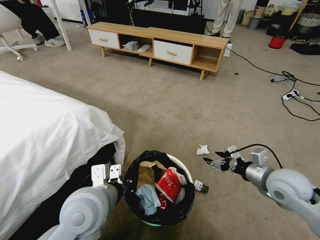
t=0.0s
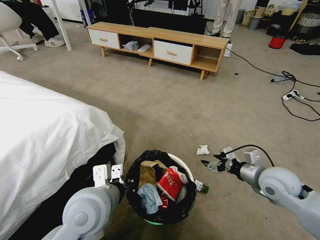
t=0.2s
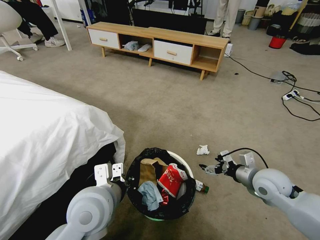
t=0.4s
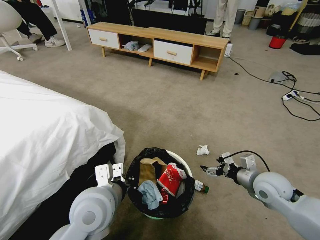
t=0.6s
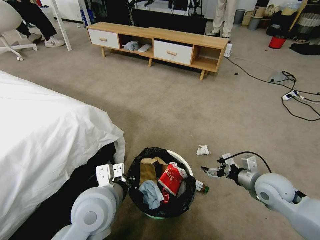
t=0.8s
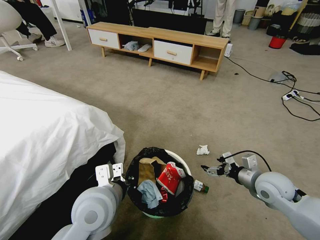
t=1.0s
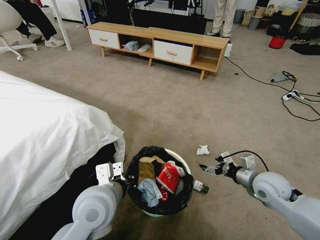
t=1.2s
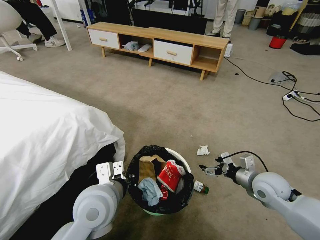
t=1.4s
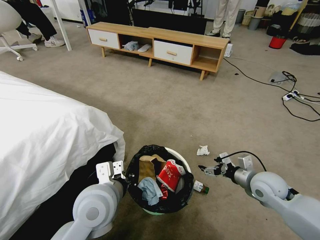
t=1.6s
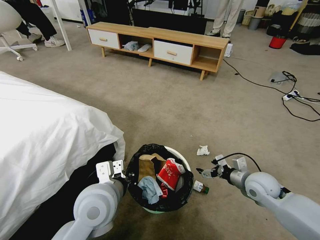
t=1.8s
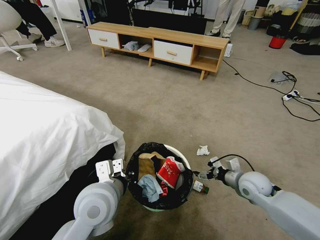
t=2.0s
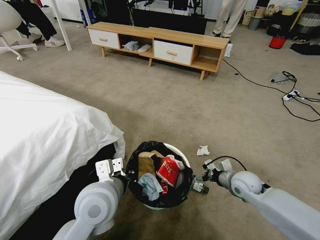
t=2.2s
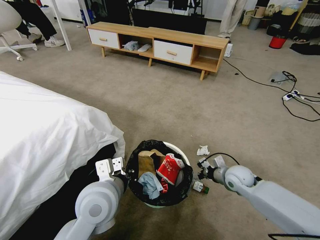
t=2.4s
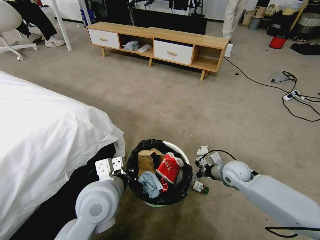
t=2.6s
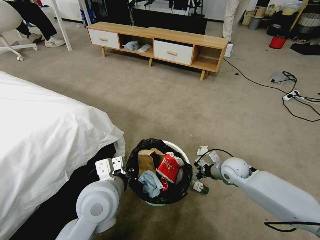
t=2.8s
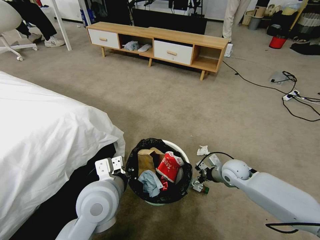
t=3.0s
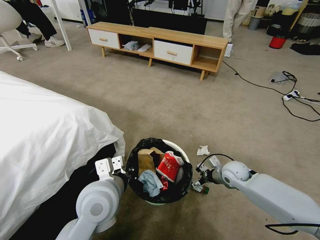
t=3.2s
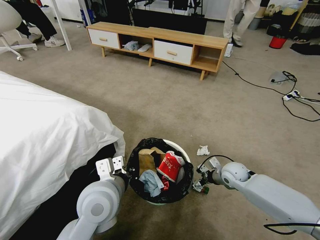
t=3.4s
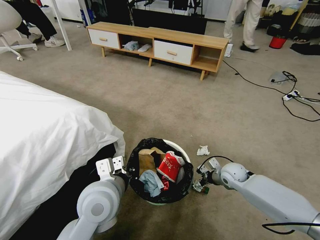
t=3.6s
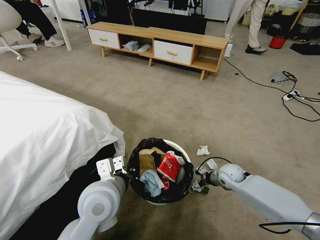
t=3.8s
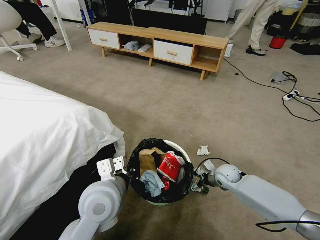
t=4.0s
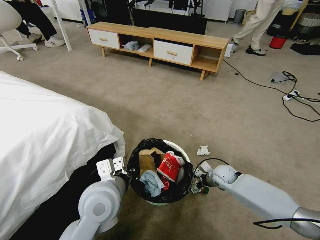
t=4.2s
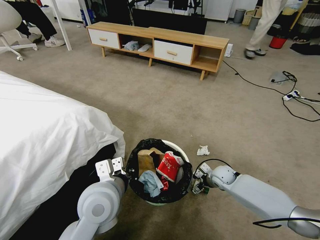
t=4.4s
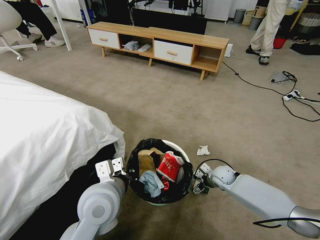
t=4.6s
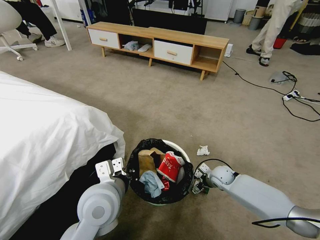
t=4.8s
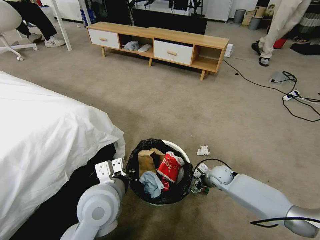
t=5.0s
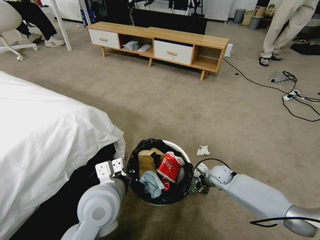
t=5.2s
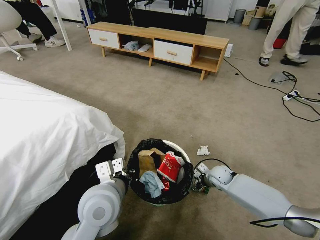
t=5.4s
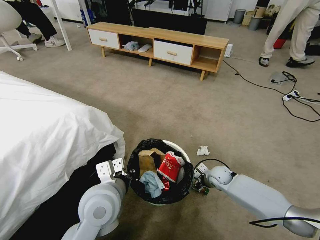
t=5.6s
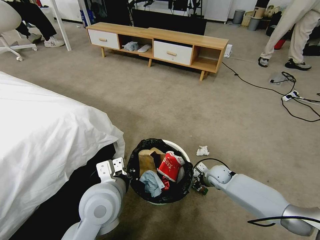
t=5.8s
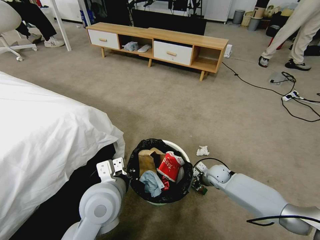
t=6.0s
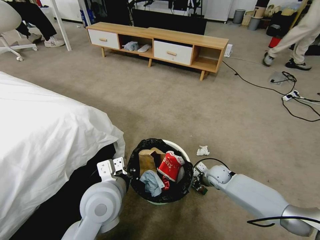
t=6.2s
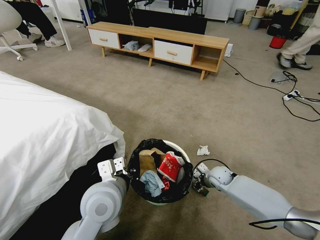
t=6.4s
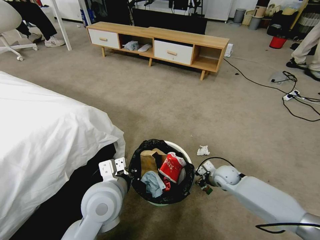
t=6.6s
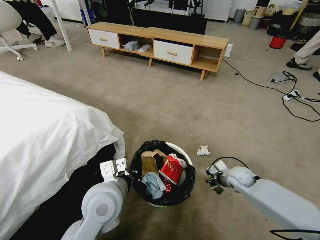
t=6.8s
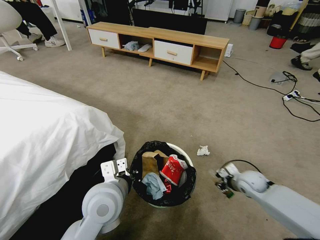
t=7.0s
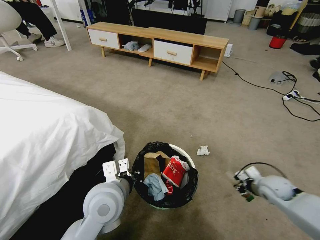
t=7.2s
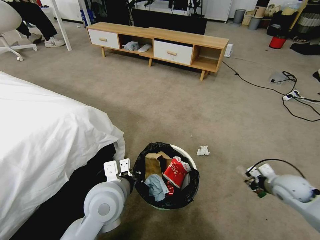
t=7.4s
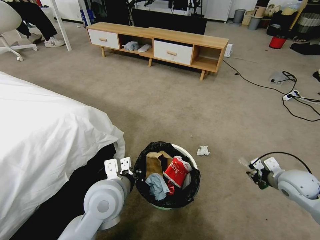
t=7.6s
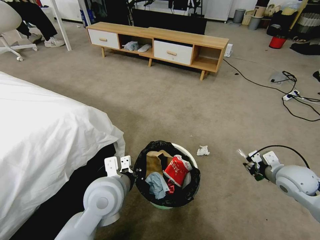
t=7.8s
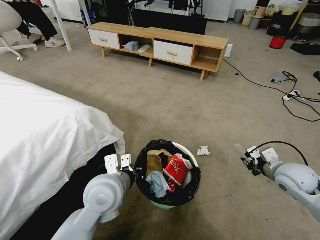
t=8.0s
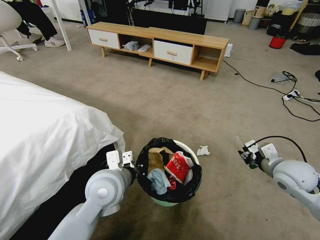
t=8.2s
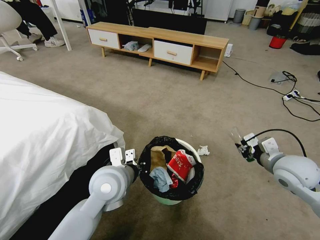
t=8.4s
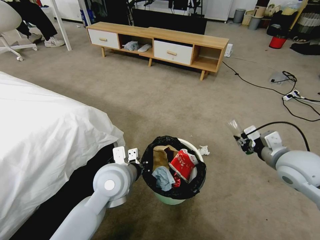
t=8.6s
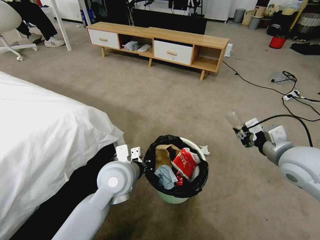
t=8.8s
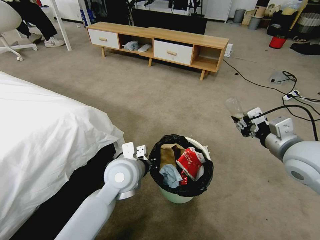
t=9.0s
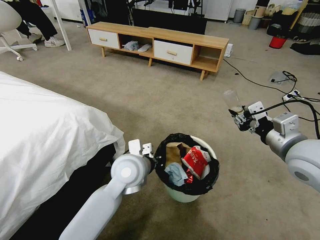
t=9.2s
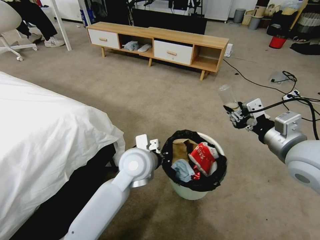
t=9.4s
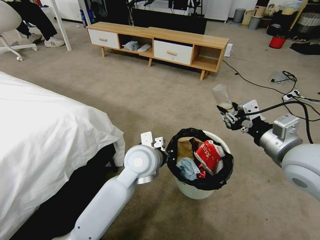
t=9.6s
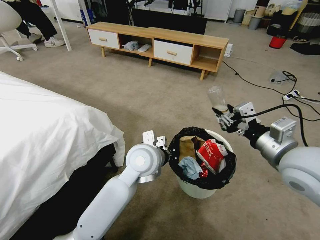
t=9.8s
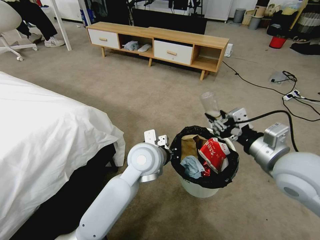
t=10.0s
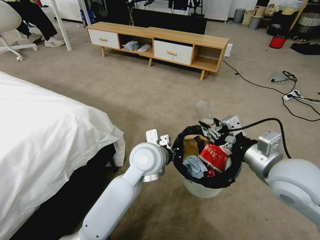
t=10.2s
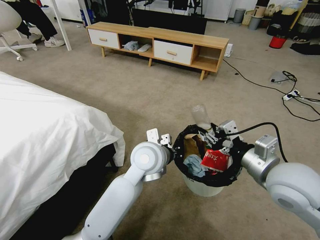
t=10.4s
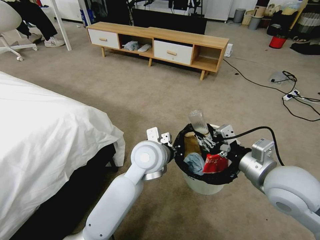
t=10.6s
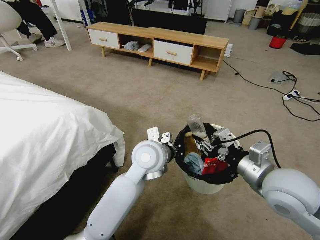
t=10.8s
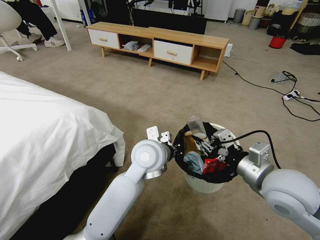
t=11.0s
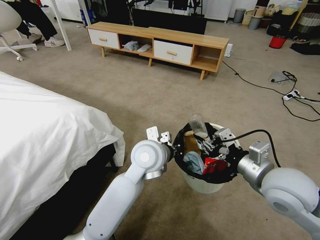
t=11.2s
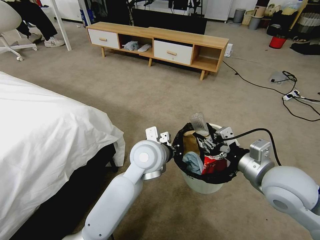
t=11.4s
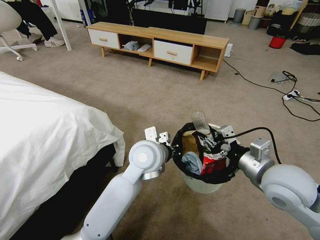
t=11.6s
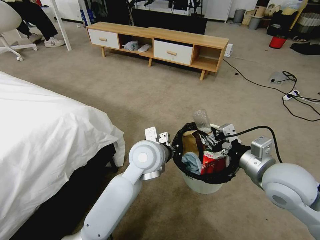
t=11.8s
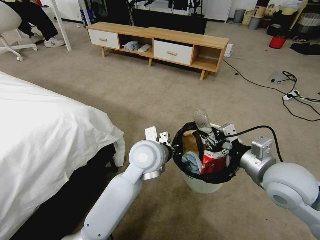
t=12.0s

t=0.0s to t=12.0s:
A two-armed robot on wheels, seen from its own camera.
Task of the whole recording: Pick up the trash bin, then pick up the garbage from the floor and place it into the trash bin.
t=0.0s to t=1.6s: The right gripper moves downward, approximately 5 cm.
t=1.6s to t=3.0s: The right gripper heads forward and downward, covering approximately 10 cm.
t=3.0s to t=4.4s: The right gripper is displaced downward by some 10 cm.
t=4.4s to t=6.0s: The right gripper closes its fingers.
t=6.0s to t=7.6s: The right gripper is displaced to the right, upward and backward by roughly 25 cm.
t=7.6s to t=9.0s: The right gripper travels upward and to the left by about 20 cm. Meanwhile the left gripper is displaced forward by approximately 5 cm.
t=9.0s to t=10.4s: The left gripper is displaced to the right by roughly 5 cm. Meanwhile the right gripper moves to the left, some 5 cm.
t=10.4s to t=12.0s: The grippers make only small movements.

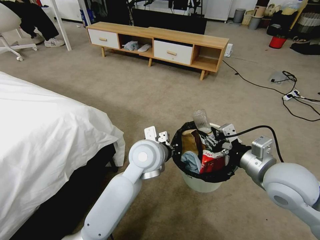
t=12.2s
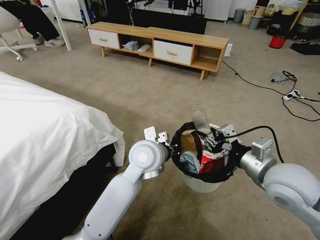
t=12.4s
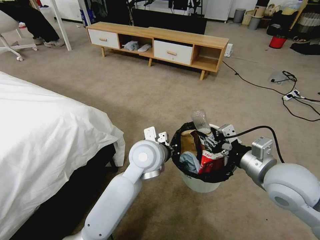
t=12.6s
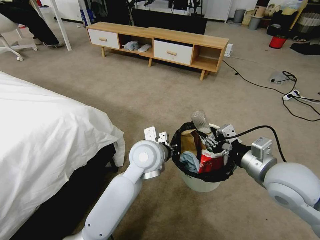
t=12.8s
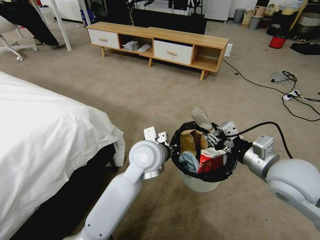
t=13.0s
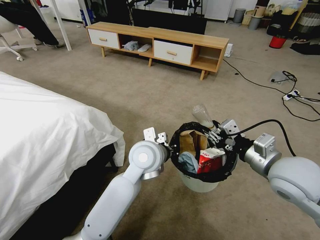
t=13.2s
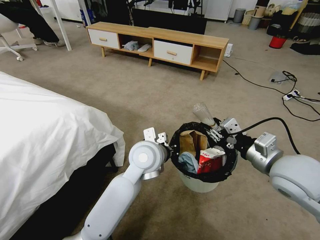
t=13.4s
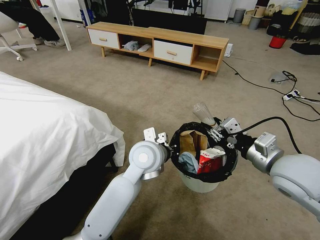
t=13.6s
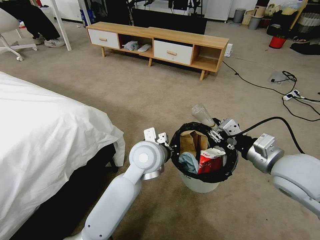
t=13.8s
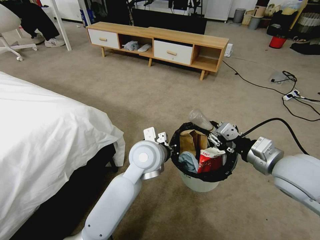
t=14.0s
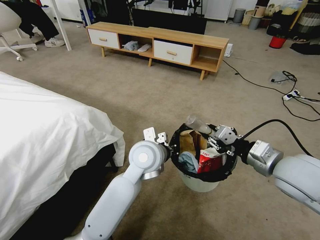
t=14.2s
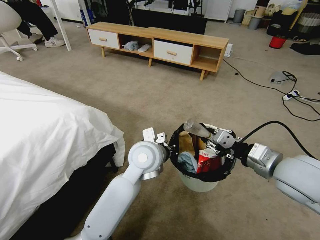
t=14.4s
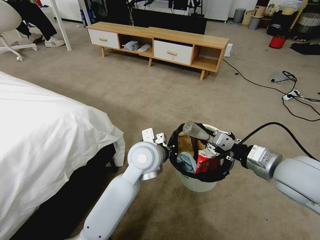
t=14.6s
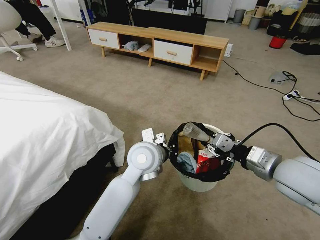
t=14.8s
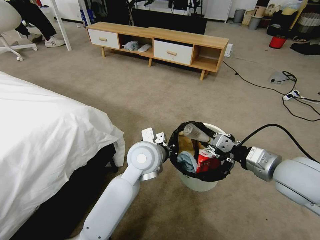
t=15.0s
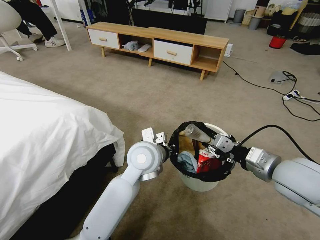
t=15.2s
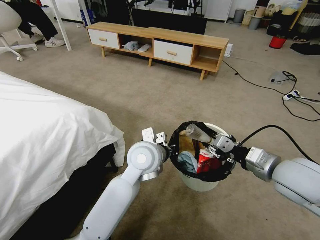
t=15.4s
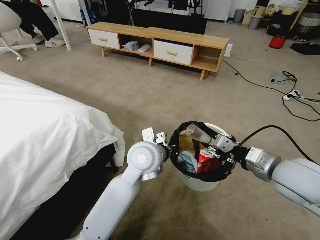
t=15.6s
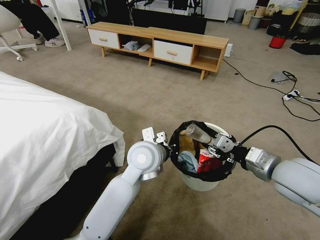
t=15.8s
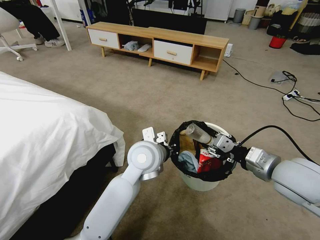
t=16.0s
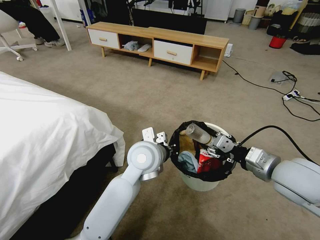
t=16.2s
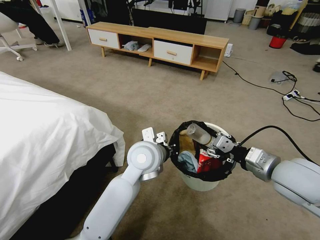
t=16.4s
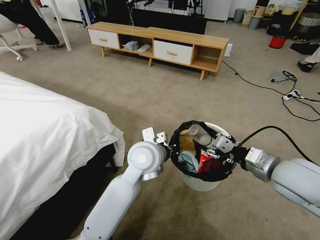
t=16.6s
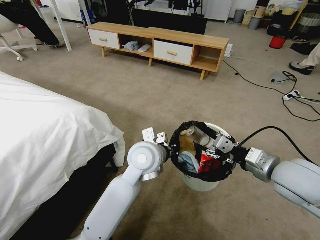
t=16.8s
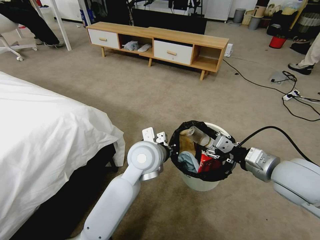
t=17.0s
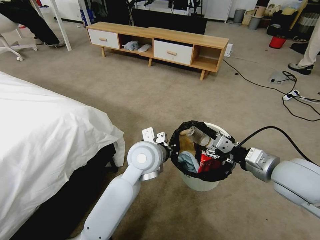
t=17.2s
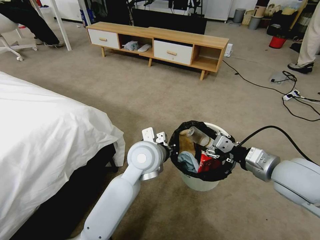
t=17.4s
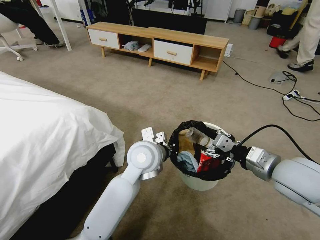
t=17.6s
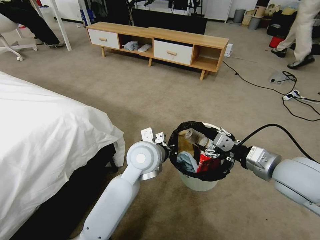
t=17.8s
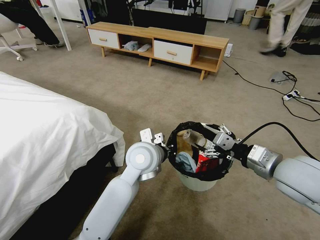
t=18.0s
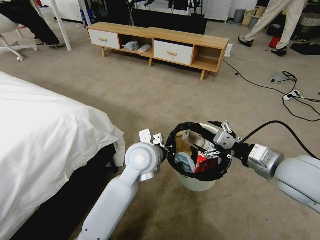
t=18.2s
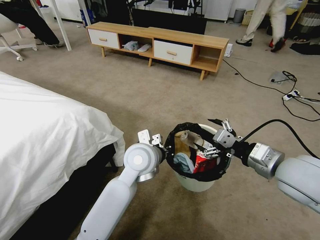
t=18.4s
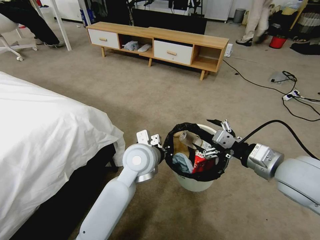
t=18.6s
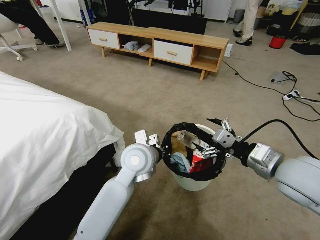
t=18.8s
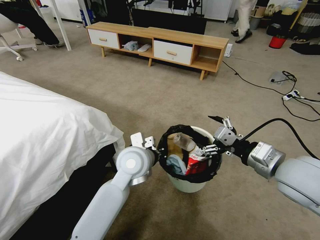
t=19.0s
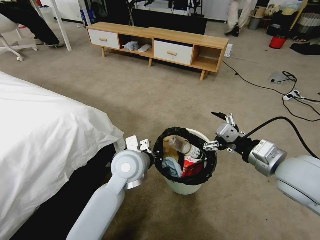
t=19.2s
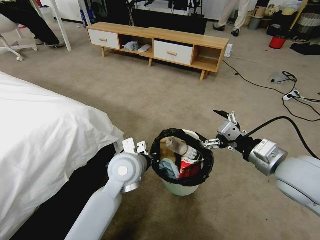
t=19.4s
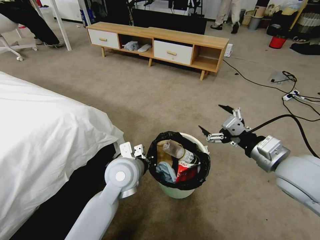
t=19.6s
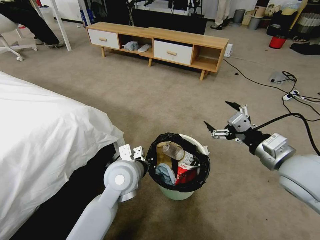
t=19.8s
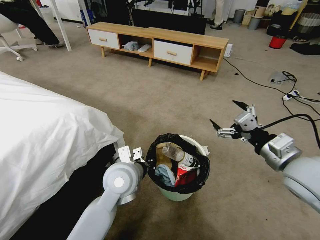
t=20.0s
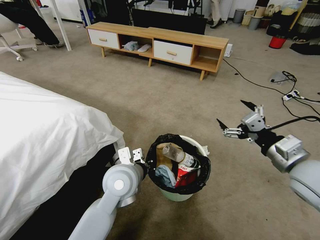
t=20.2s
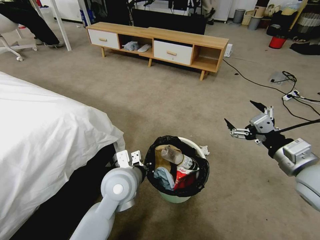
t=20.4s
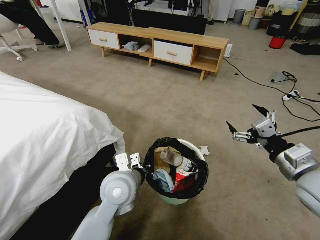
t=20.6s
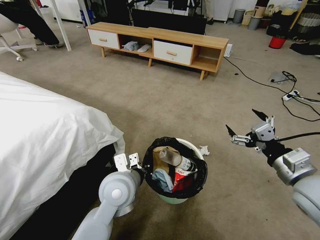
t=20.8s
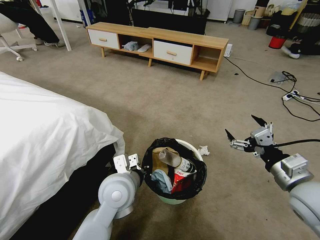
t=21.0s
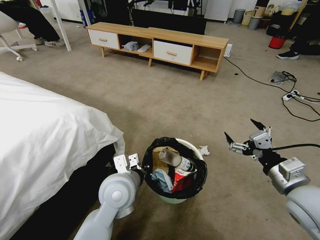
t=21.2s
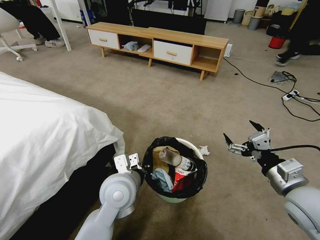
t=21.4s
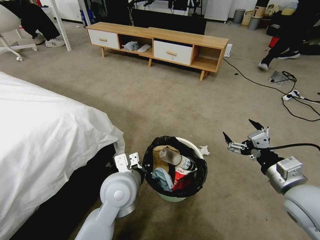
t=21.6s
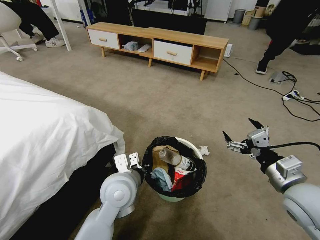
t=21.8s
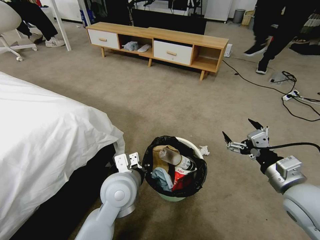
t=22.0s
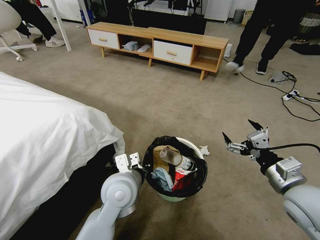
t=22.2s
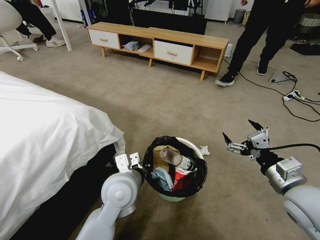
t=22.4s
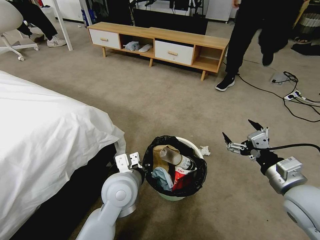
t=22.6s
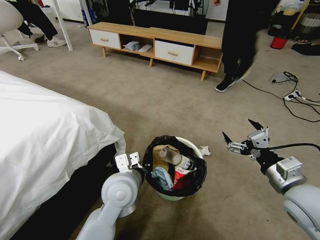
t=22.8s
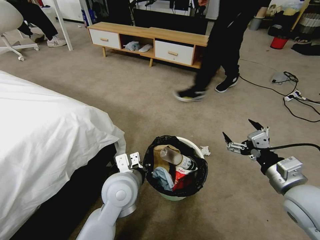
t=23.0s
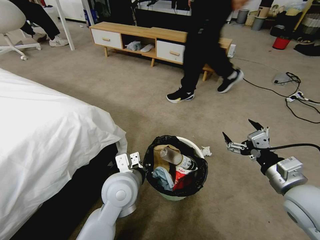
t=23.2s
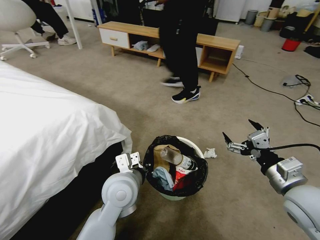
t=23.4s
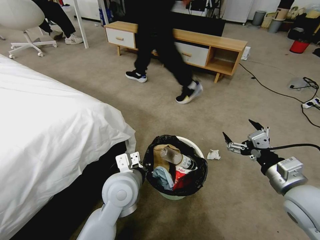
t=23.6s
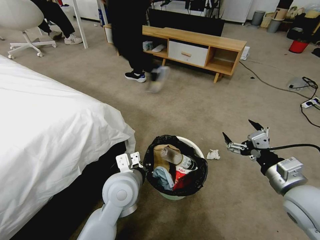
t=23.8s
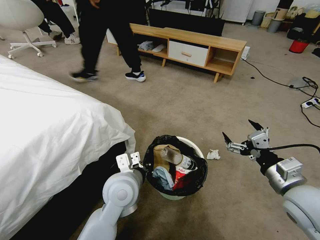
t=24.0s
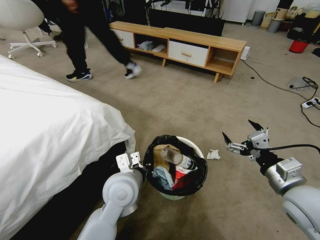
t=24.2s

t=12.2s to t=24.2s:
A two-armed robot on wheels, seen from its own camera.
Task of the whole recording: Pick up the trash bin, then pick up the garbage from the floor and place it into the trash bin.
t=13.8s to t=15.2s: The grippers move only a little.
t=15.2s to t=16.6s: Neither gripper changes place.
t=16.6s to t=18.2s: The right gripper opens.
t=18.2s to t=19.8s: The left gripper goes roughly 5 cm to the left.
t=19.8s to t=21.2s: The right gripper moves downward, some 5 cm.
t=21.2s to t=22.6s: Both grippers stay about where they are.
